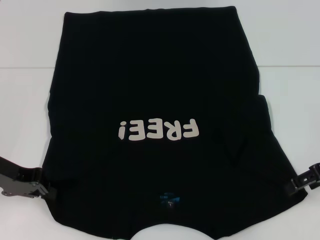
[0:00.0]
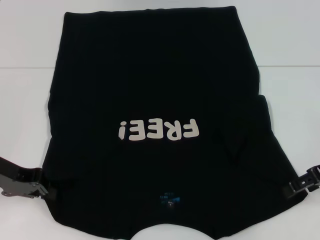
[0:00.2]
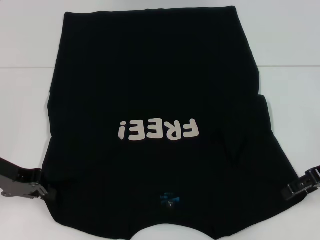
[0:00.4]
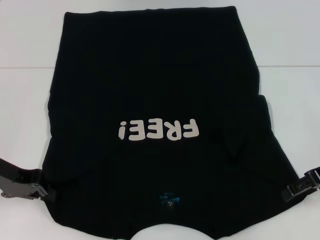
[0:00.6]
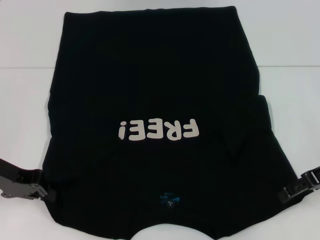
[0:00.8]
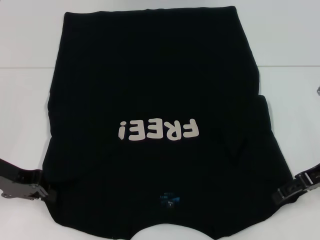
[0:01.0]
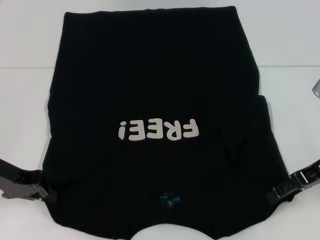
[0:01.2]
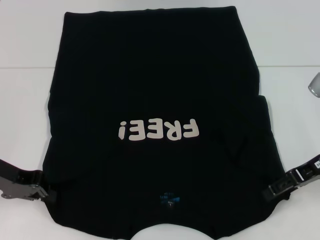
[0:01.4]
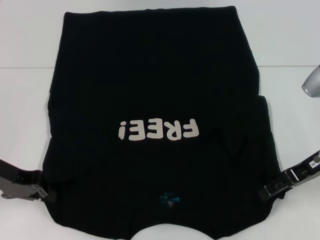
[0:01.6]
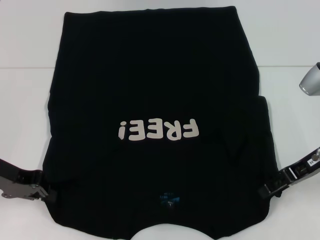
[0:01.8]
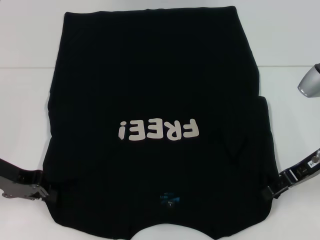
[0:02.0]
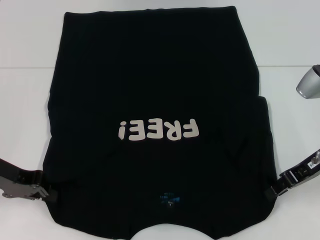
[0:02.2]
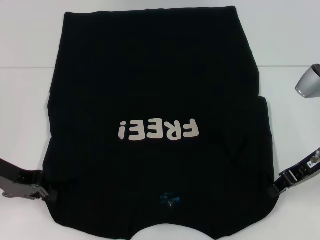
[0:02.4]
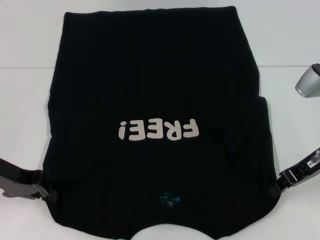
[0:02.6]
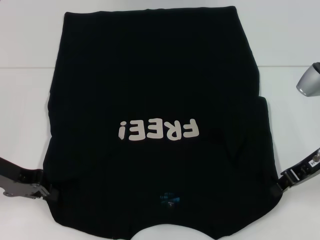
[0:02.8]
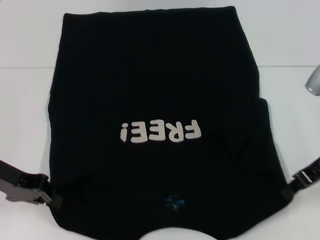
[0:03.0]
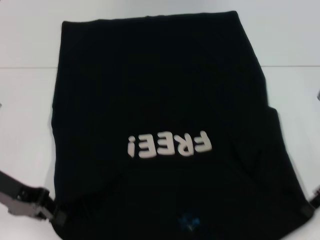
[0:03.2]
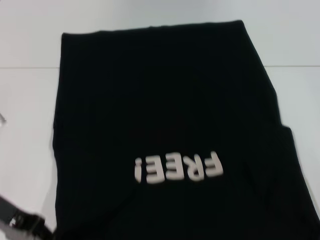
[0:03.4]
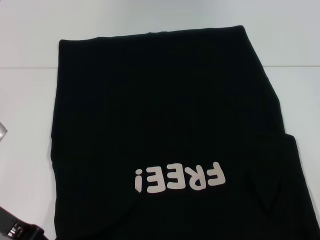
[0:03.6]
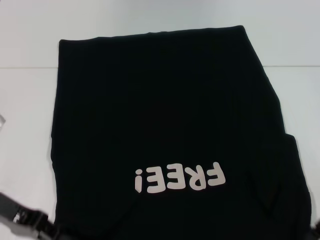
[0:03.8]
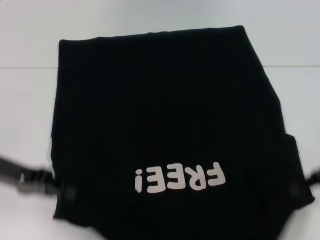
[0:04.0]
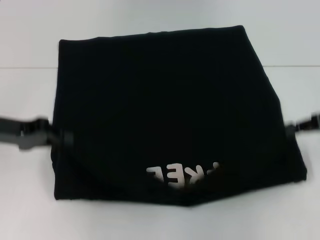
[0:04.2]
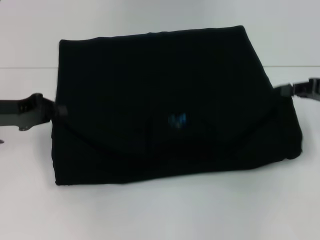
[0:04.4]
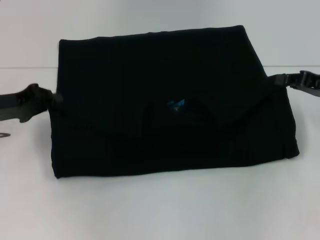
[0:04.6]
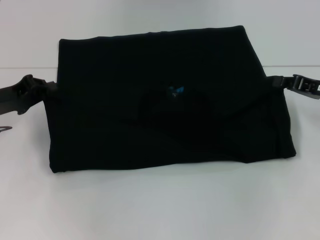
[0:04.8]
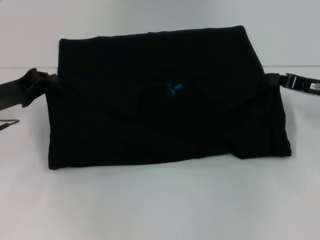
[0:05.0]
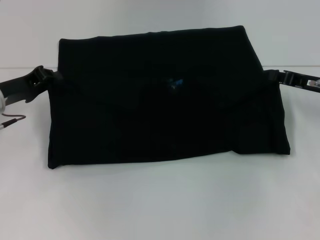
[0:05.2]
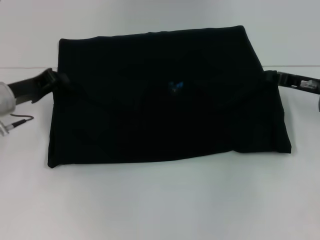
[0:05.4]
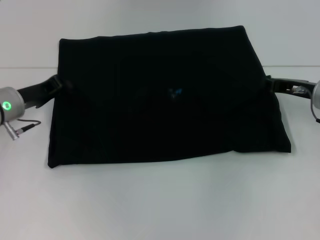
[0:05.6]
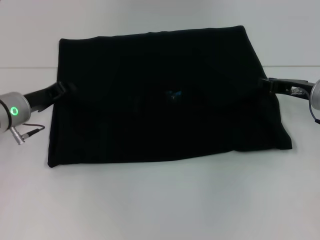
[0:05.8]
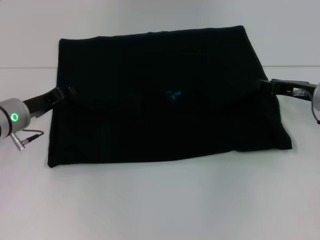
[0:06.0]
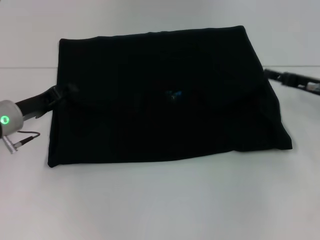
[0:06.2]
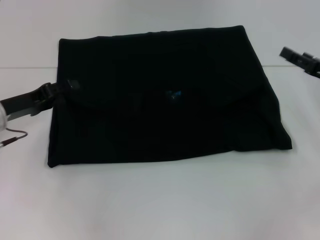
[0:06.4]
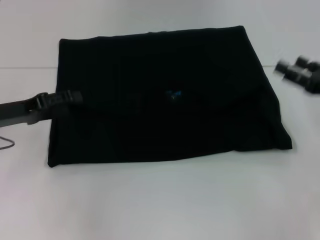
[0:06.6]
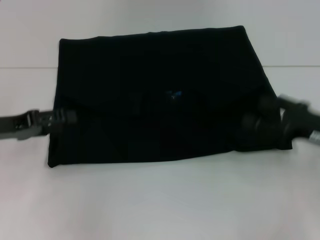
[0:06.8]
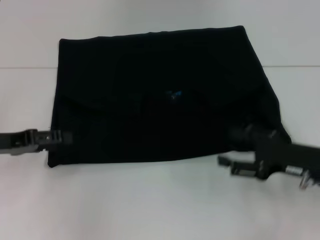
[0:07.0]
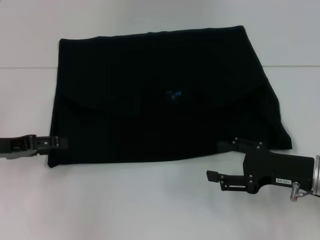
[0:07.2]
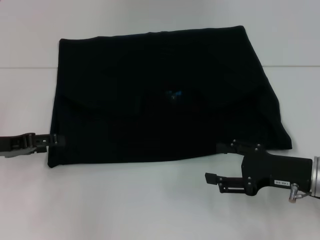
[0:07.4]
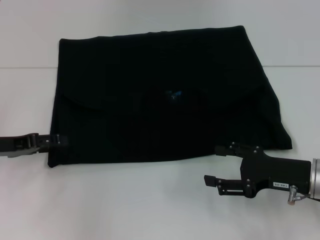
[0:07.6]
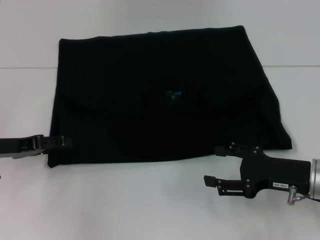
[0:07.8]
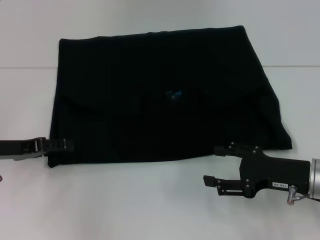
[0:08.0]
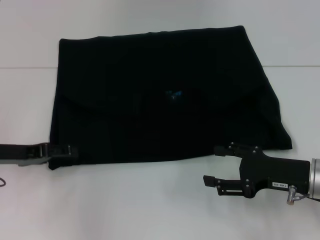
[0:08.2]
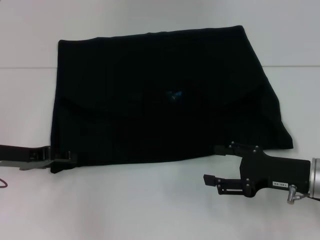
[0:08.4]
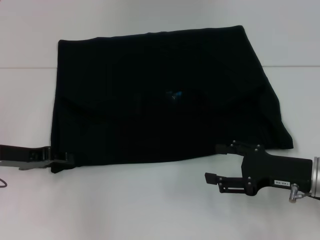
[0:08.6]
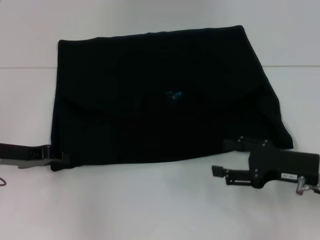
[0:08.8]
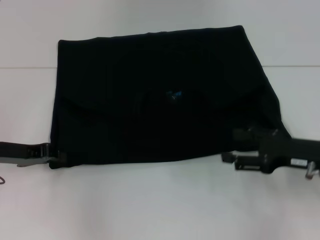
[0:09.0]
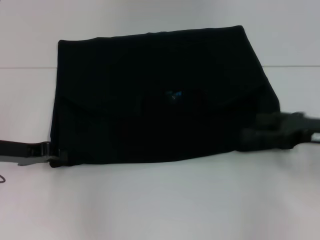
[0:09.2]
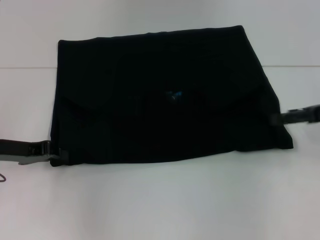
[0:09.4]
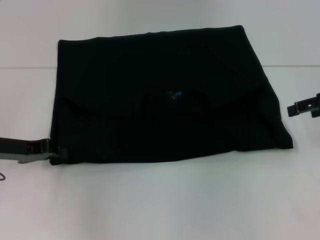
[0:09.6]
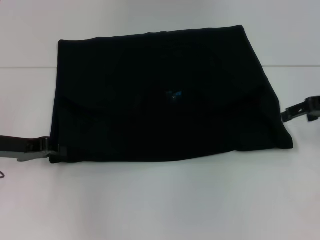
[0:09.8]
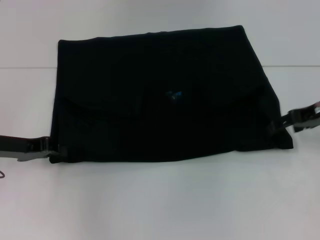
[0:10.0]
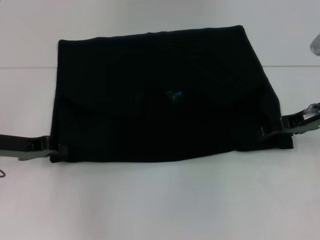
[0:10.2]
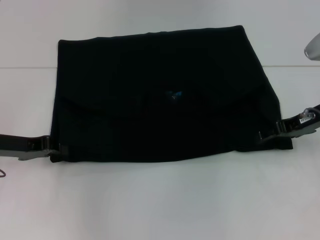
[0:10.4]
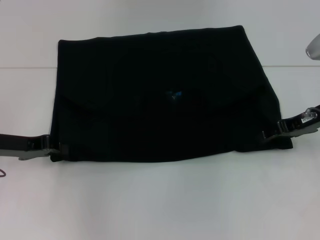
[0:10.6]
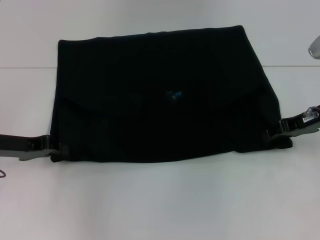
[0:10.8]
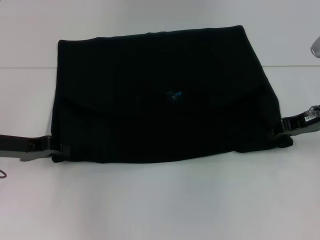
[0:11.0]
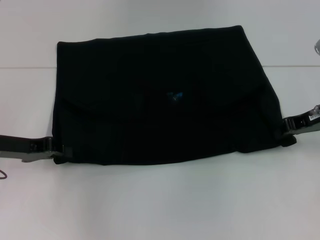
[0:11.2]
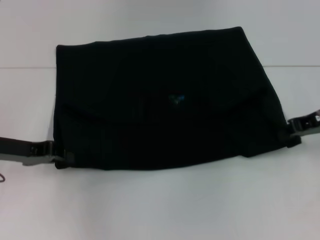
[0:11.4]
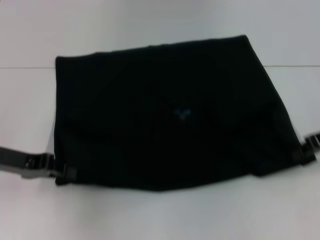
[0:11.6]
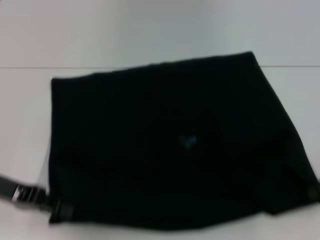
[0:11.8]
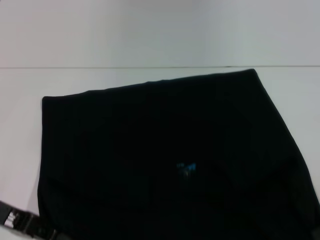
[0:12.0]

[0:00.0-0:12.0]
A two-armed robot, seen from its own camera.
Step, 0:02.0 to 0:06.4: Fold the clothes with your left hand.
Step, 0:02.0 to 0:06.4: Fold the clothes with your right hand.
0:00.0 to 0:01.6: There are only small adjustments of the grippers.
0:01.6 to 0:03.0: The right gripper closes.
0:03.0 to 0:04.4: The right gripper goes approximately 5 cm to the right.
0:04.4 to 0:06.0: The right gripper travels downward and to the left by roughly 10 cm. Meanwhile the left gripper heads downward and to the right, covering about 10 cm.
0:06.0 to 0:07.6: The right gripper goes about 10 cm backward, and opens its fingers, while the left gripper is displaced to the left and backward by some 10 cm, and opens up.
0:07.6 to 0:09.0: The left gripper closes up.
0:09.0 to 0:10.4: The right gripper moves forward, some 10 cm.
0:10.4 to 0:12.0: The left gripper heads backward, covering some 5 cm. Meanwhile the right gripper moves backward and to the right, roughly 10 cm, and closes.

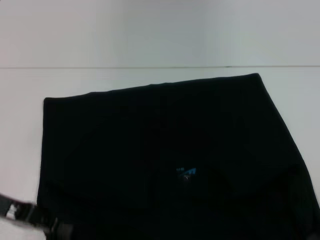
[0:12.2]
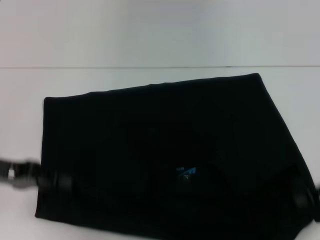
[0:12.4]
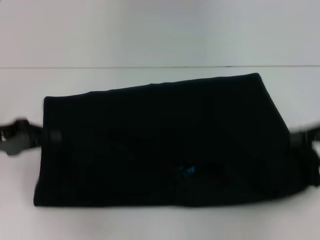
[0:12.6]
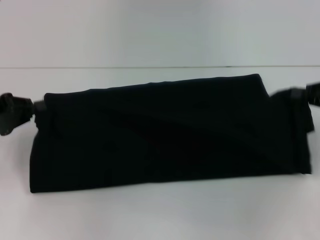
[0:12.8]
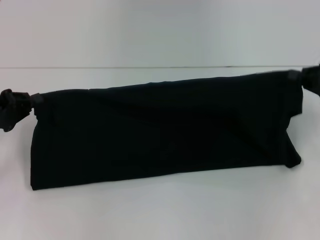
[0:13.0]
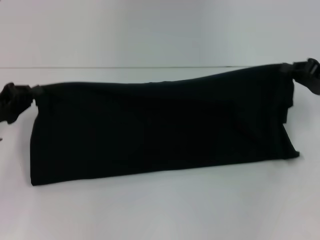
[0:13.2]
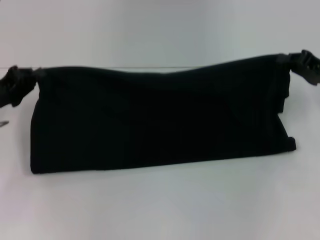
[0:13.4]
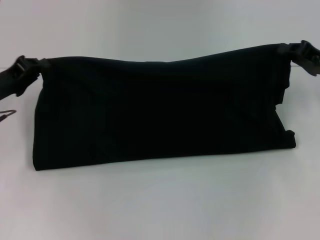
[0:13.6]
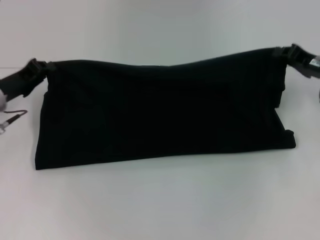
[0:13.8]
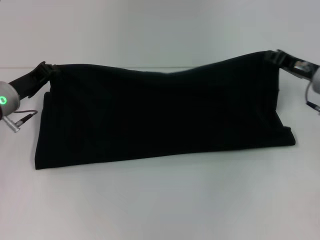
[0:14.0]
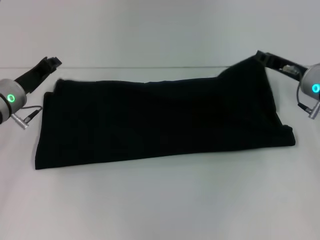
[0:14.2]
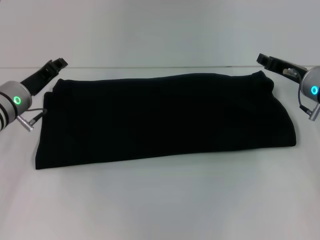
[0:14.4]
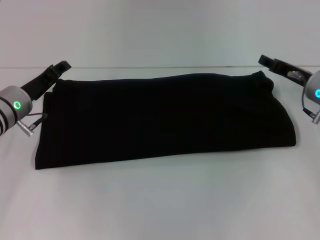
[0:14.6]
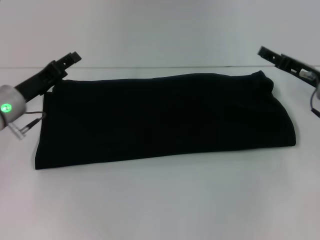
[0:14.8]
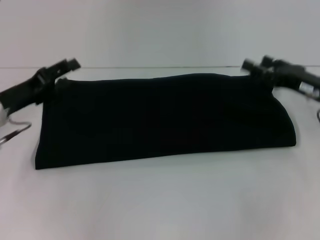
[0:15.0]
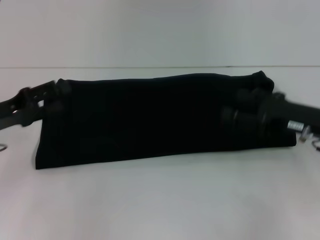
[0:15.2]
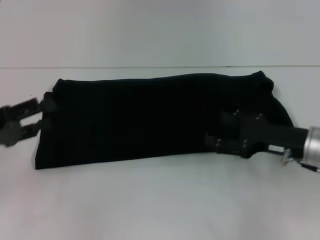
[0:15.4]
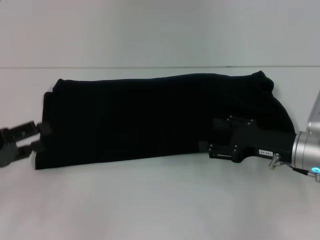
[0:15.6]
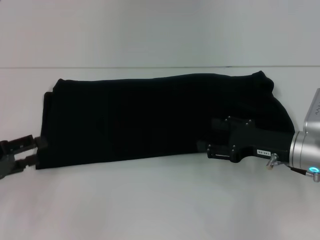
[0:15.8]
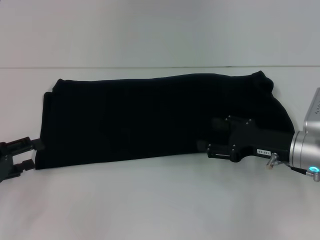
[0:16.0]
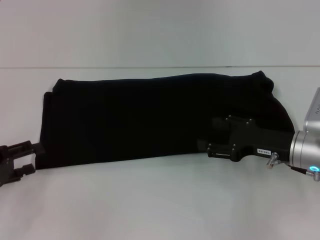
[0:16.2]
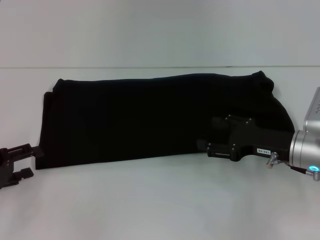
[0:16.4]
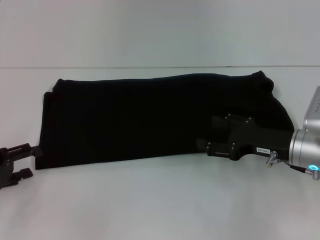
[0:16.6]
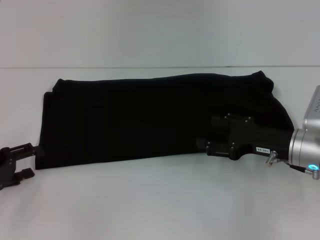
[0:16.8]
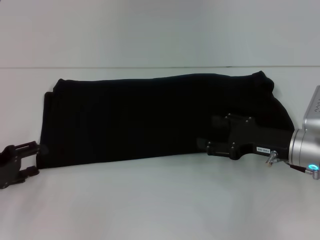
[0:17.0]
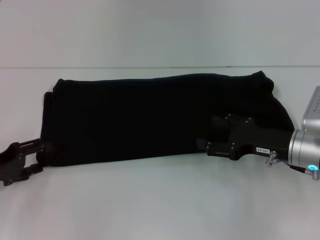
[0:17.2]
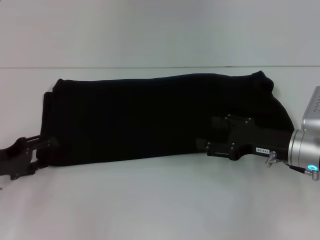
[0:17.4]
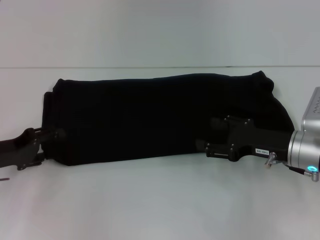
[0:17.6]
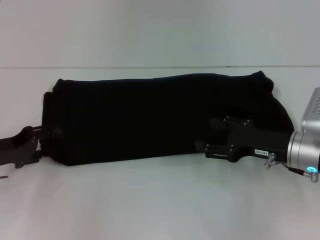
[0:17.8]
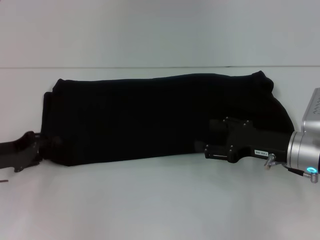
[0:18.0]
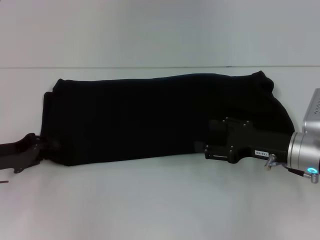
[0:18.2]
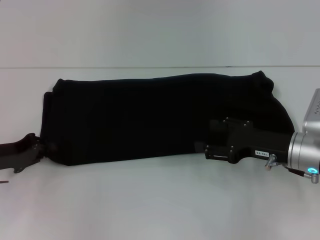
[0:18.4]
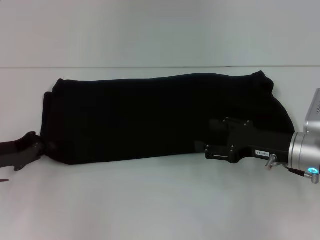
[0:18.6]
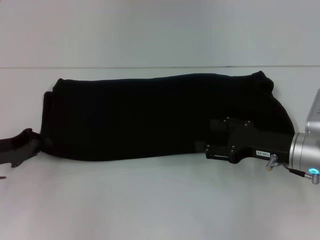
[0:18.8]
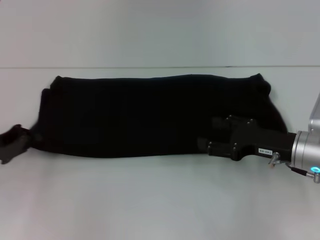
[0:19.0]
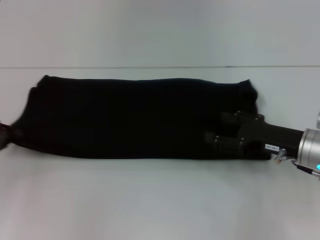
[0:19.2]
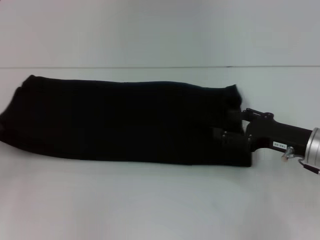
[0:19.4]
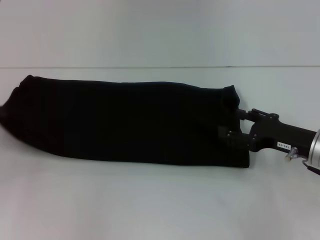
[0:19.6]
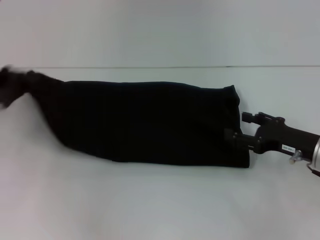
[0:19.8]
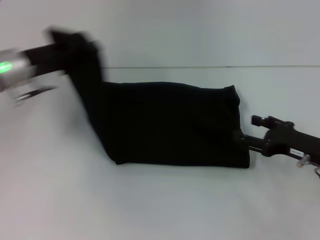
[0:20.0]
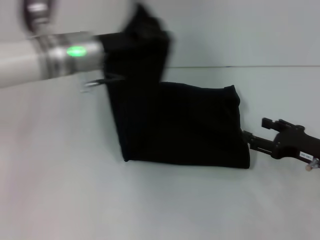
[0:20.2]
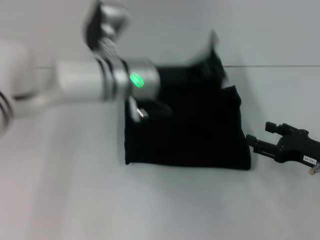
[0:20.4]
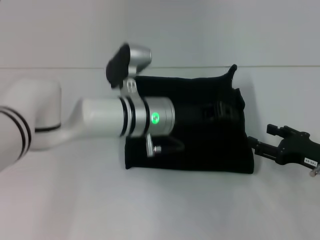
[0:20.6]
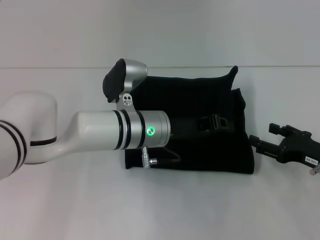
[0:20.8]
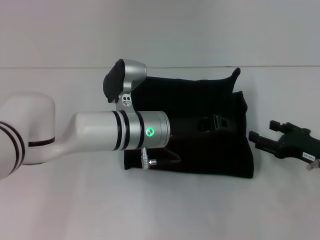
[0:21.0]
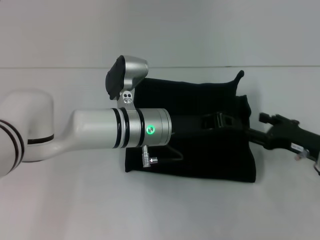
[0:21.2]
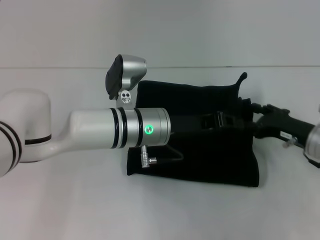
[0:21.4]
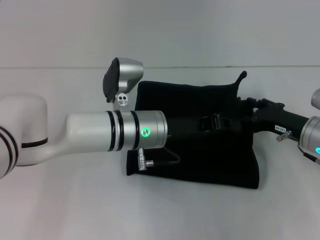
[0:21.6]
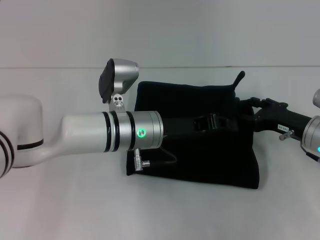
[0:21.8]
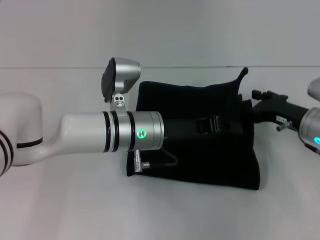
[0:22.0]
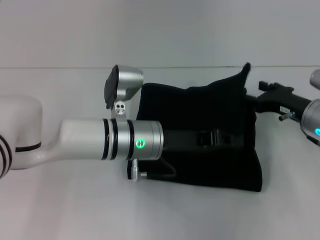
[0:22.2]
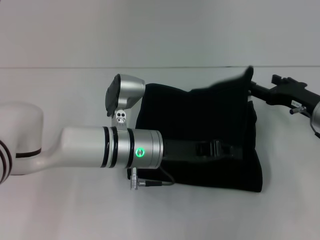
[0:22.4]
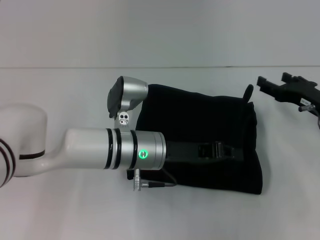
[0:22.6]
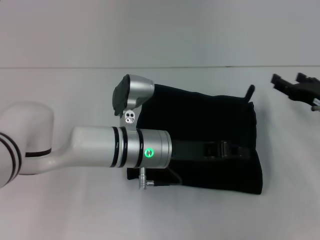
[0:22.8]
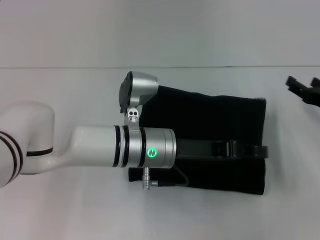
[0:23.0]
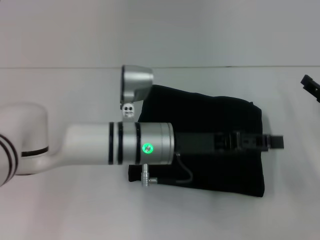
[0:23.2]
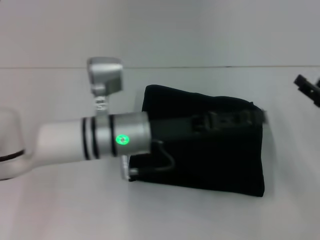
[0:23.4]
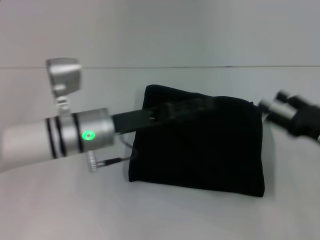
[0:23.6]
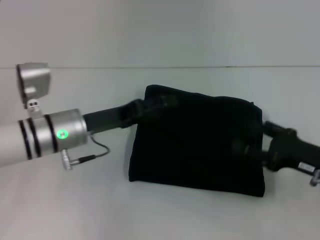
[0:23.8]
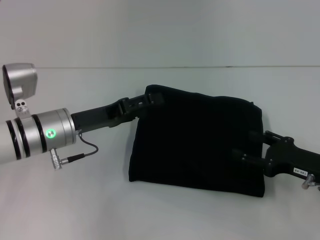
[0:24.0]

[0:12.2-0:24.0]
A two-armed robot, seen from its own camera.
Step, 0:12.4 to 0:15.2: Fold the clothes with your right hand.
Step, 0:12.4 to 0:23.8: Fold the clothes with your left hand.
0:12.2 to 0:13.6: The grippers both shift forward by approximately 10 cm.
0:13.6 to 0:15.2: The right gripper travels backward by about 5 cm, and opens its fingers. Meanwhile the left gripper opens its fingers.
0:15.2 to 0:16.6: The left gripper shifts roughly 5 cm backward; the right gripper shifts by some 5 cm.
0:16.6 to 0:18.2: The left gripper moves about 5 cm.
0:18.2 to 0:19.6: The left gripper shifts roughly 5 cm to the left, and closes.
0:19.6 to 0:21.0: The right gripper ends up roughly 5 cm from where it was, while the left gripper goes approximately 35 cm to the right.
0:21.0 to 0:22.6: The right gripper is displaced forward by approximately 5 cm.
0:22.6 to 0:24.0: The right gripper moves backward, some 10 cm. The left gripper shifts about 15 cm to the left, and opens.
